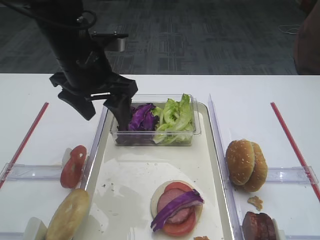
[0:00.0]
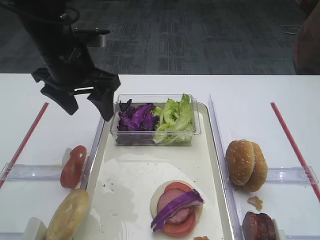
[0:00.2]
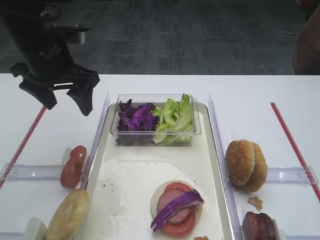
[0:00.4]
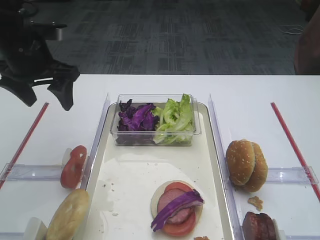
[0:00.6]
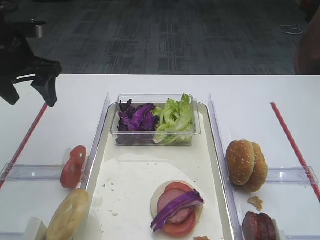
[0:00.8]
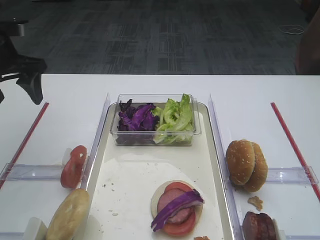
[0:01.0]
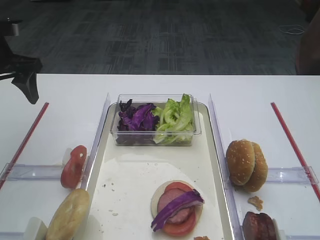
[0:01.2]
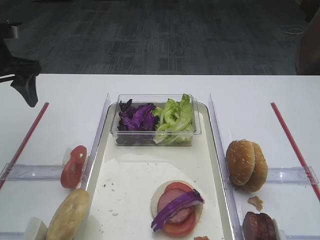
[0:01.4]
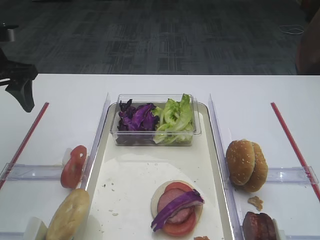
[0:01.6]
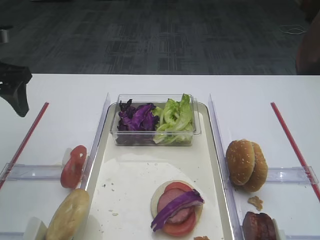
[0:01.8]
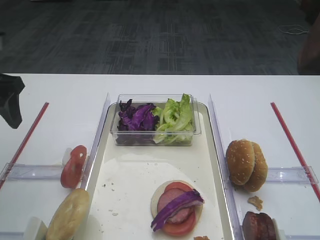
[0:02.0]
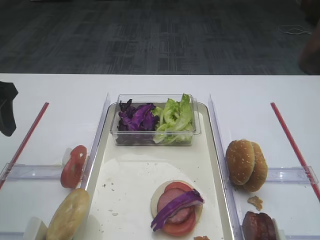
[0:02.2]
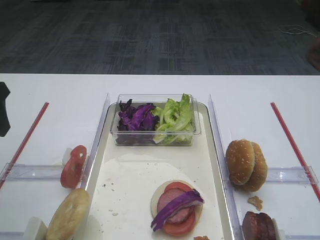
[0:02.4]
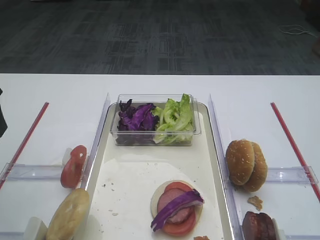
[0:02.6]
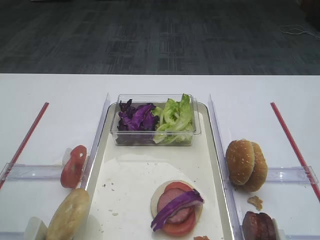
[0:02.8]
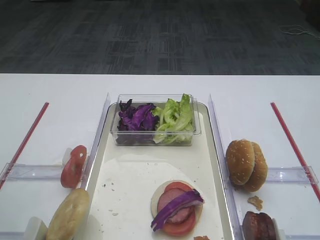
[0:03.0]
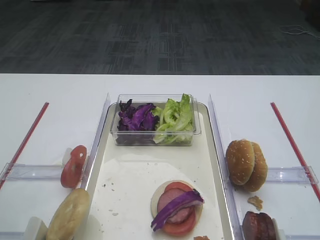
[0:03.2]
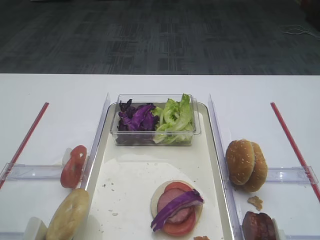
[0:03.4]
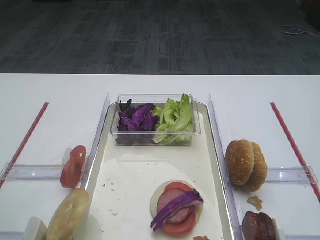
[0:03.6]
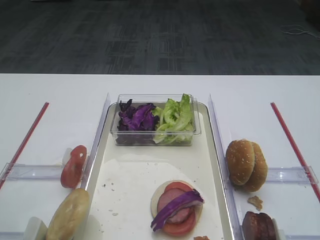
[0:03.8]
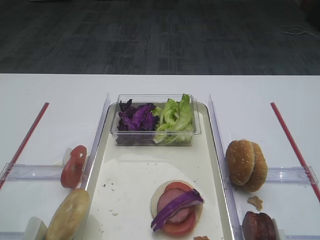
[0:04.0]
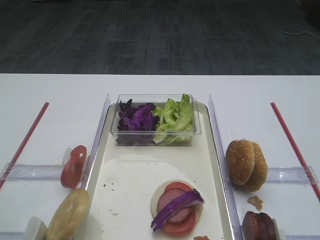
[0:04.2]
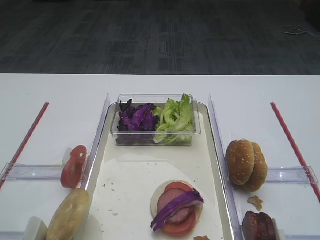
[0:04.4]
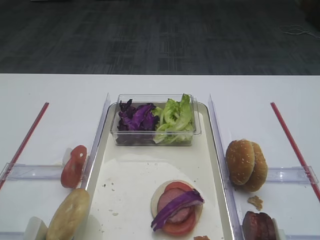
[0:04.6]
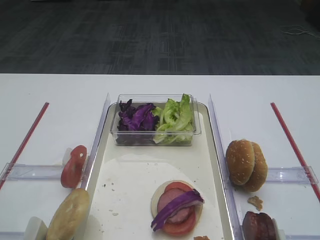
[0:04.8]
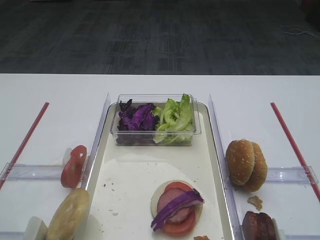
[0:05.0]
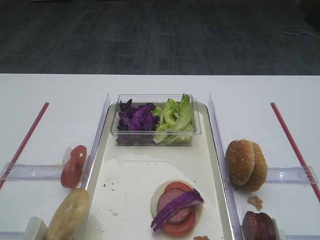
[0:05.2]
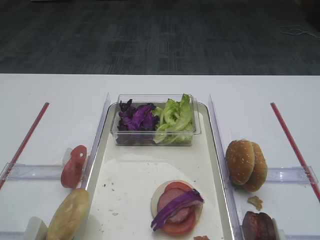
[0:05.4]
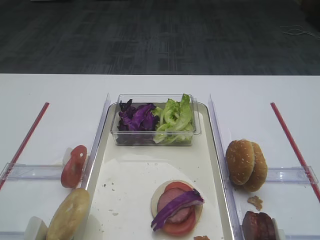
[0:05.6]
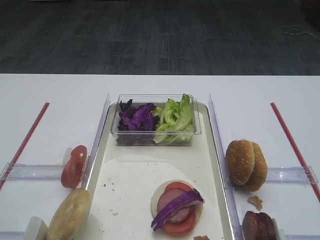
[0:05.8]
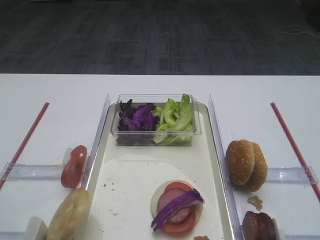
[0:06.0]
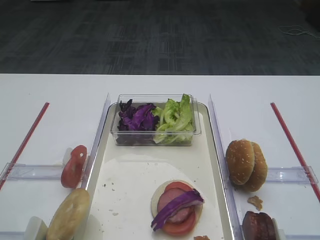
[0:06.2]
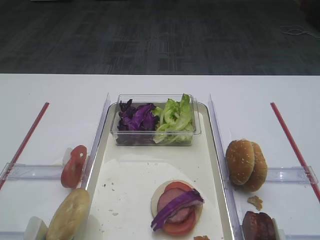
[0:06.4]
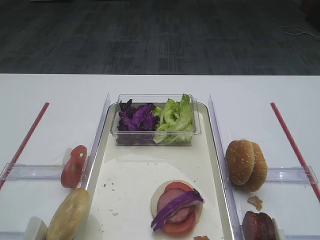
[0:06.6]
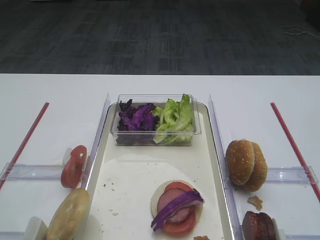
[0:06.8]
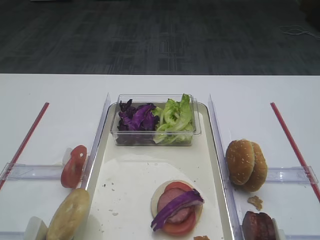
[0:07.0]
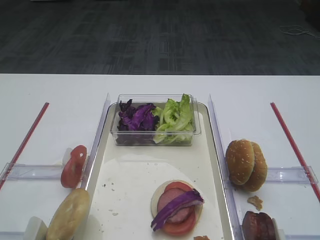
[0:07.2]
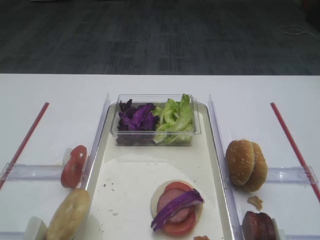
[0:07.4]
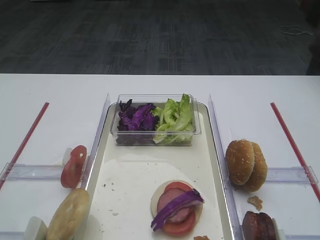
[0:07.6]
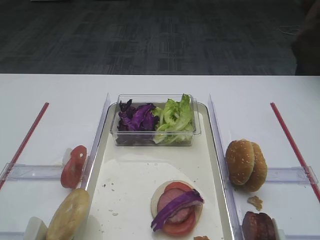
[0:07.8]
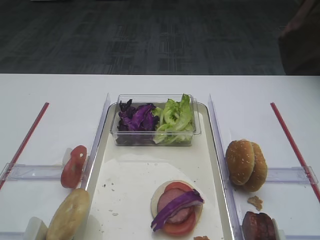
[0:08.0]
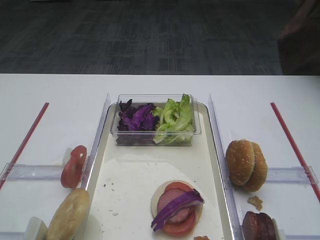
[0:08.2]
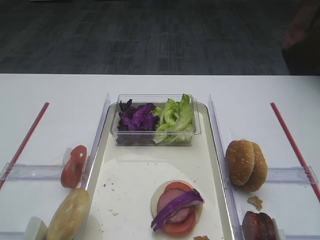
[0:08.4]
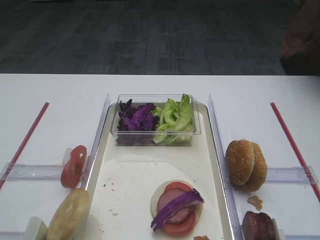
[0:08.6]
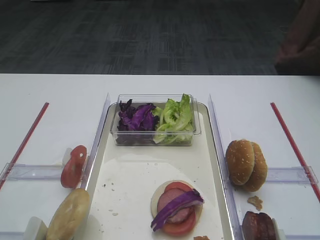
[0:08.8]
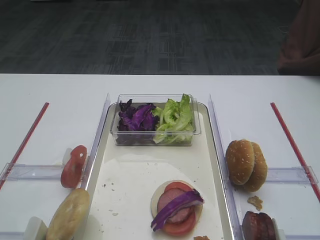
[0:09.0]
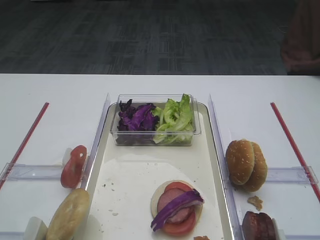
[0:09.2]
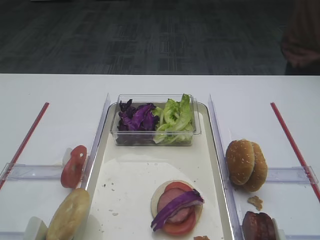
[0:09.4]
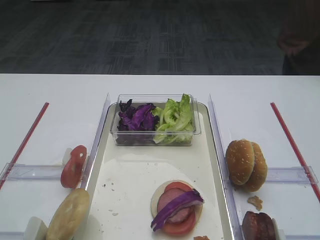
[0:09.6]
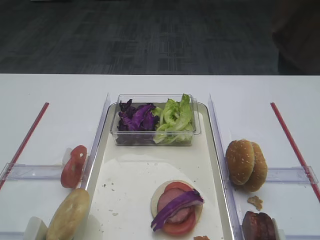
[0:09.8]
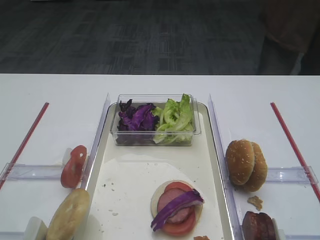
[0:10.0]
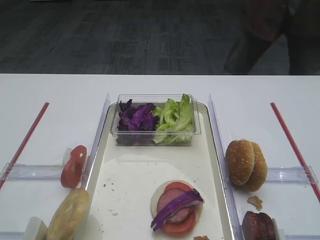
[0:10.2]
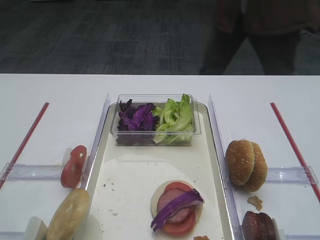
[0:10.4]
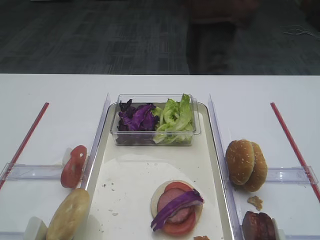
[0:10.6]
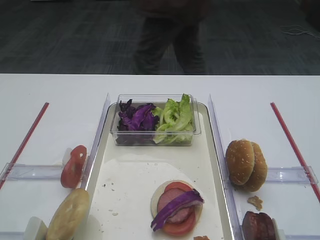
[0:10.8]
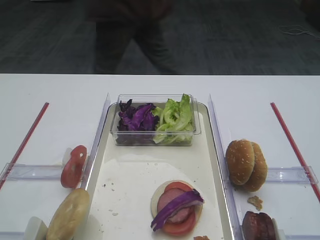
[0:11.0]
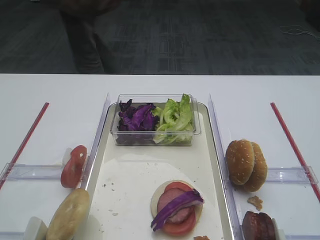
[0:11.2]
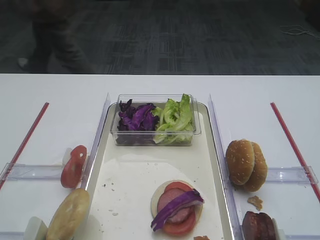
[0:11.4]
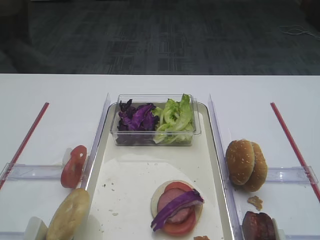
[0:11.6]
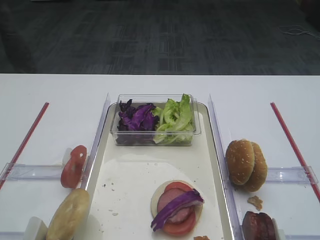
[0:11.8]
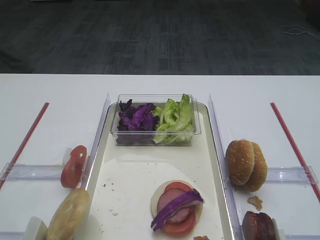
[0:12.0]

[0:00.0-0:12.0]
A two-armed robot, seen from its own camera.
0:00.0 to 0:01.6: The left gripper is displaced to the left by approximately 15 cm.
0:01.6 to 0:03.0: The left gripper travels backward by roughly 15 cm.
0:07.6 to 0:12.0: Both grippers stay about where they are.

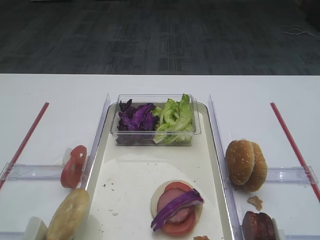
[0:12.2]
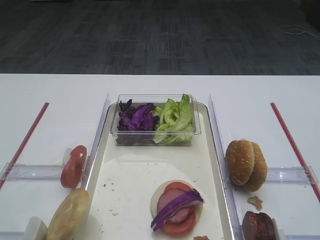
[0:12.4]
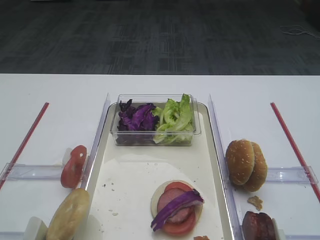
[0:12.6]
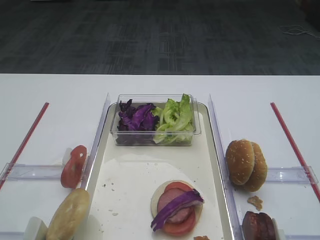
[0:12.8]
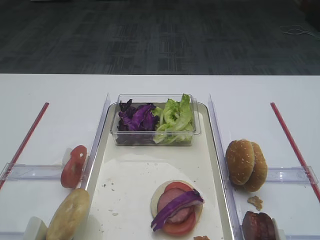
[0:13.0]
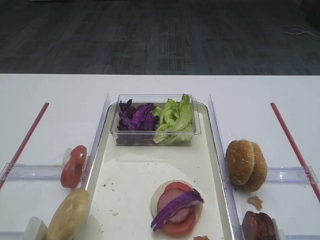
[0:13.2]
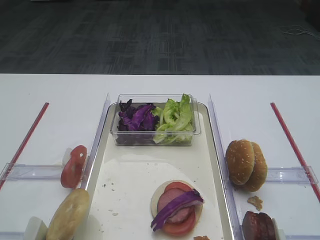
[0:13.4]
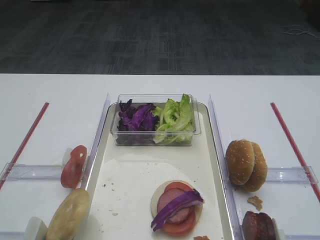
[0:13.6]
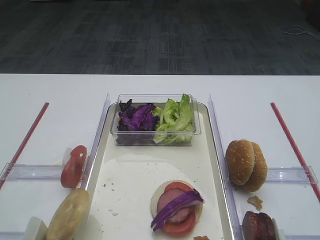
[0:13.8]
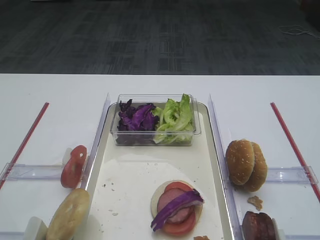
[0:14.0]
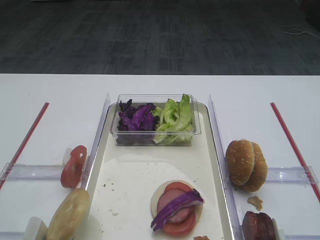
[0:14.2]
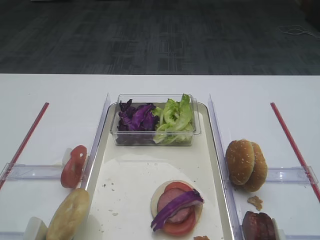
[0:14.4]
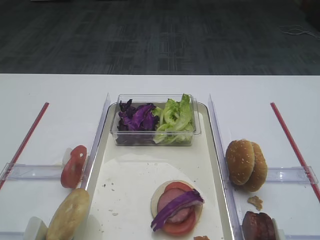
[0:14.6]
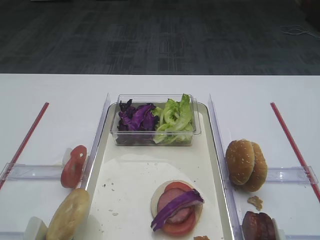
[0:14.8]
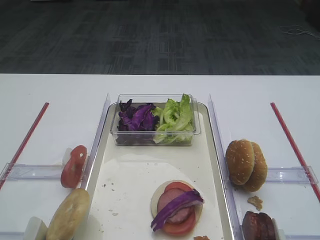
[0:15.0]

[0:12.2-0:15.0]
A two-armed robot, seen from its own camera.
0:12.2 to 0:15.0: Both grippers stay about where they are.

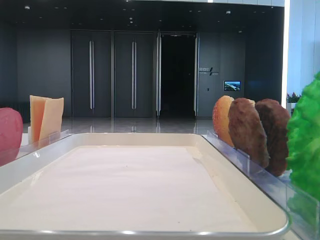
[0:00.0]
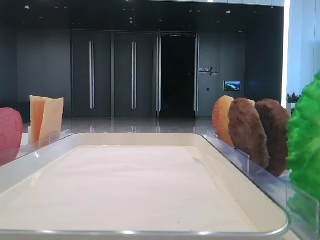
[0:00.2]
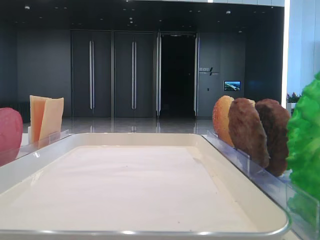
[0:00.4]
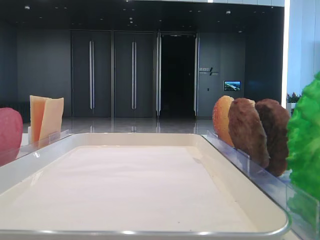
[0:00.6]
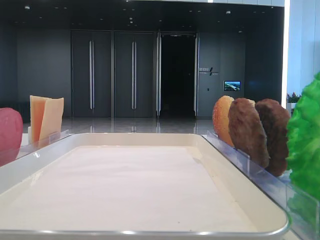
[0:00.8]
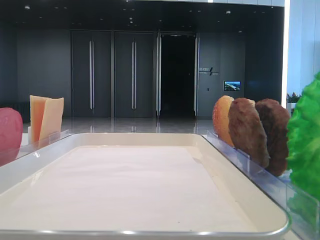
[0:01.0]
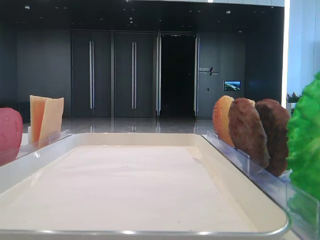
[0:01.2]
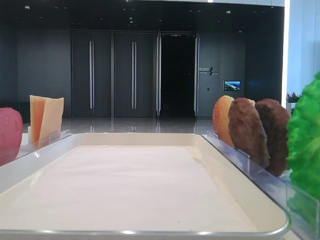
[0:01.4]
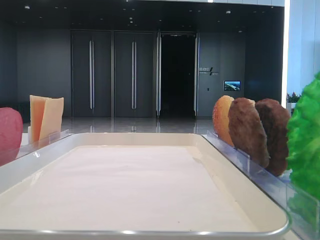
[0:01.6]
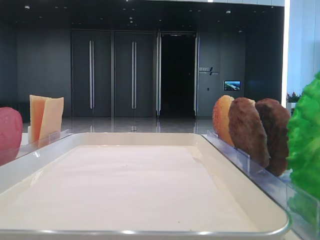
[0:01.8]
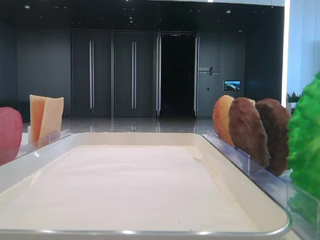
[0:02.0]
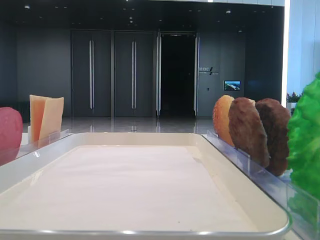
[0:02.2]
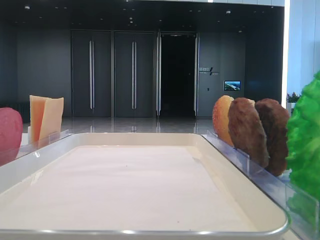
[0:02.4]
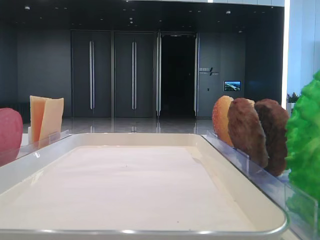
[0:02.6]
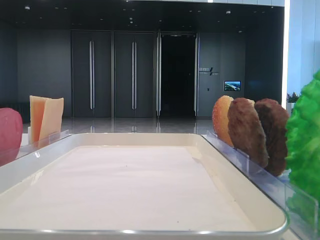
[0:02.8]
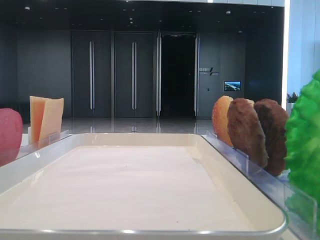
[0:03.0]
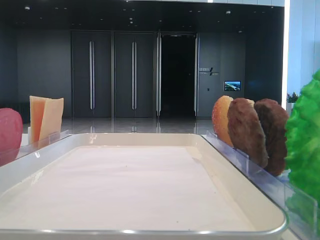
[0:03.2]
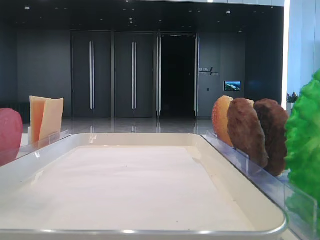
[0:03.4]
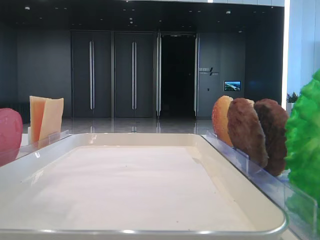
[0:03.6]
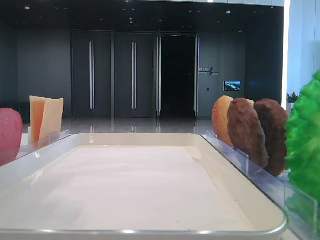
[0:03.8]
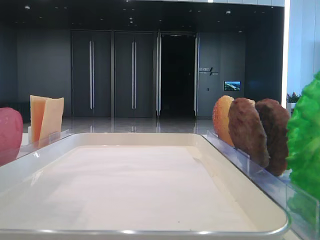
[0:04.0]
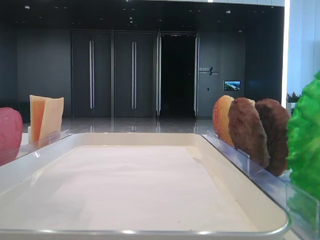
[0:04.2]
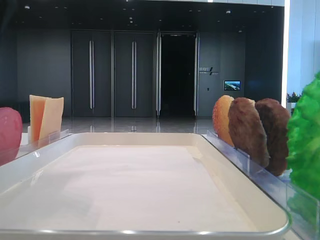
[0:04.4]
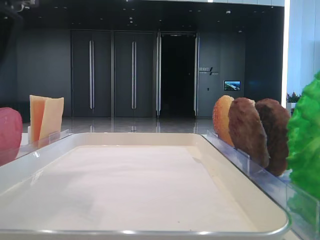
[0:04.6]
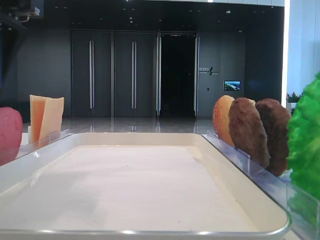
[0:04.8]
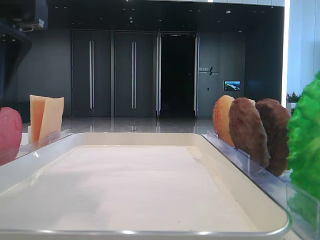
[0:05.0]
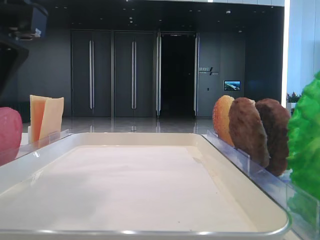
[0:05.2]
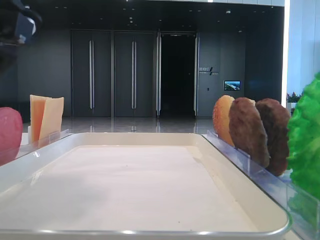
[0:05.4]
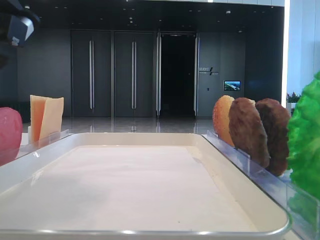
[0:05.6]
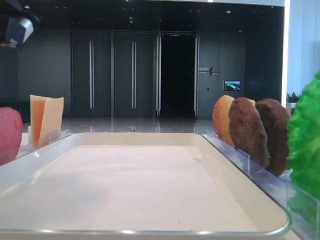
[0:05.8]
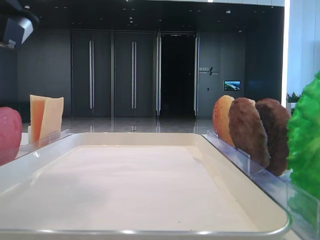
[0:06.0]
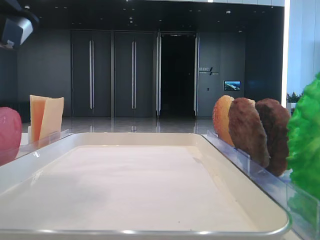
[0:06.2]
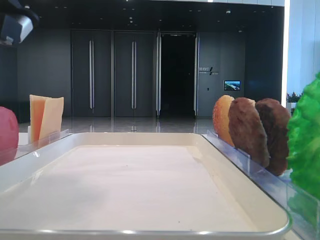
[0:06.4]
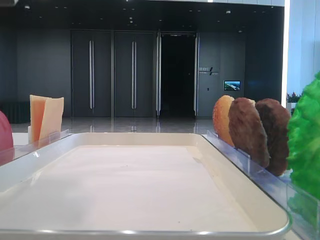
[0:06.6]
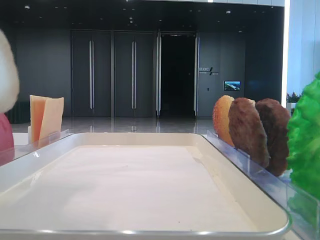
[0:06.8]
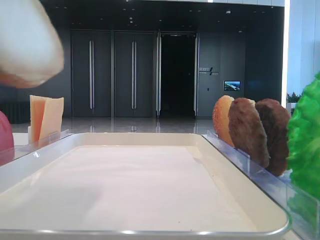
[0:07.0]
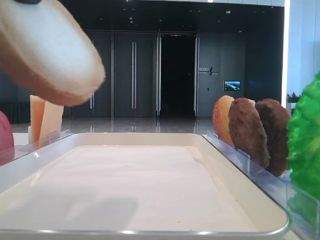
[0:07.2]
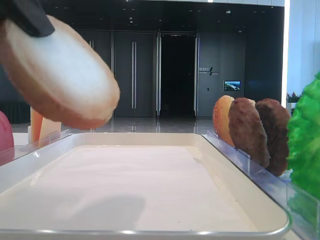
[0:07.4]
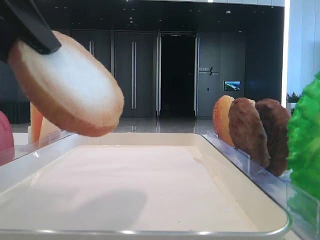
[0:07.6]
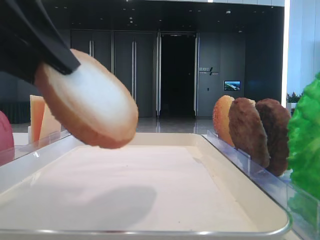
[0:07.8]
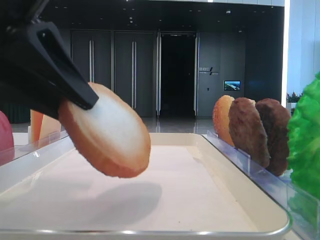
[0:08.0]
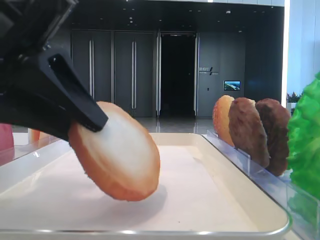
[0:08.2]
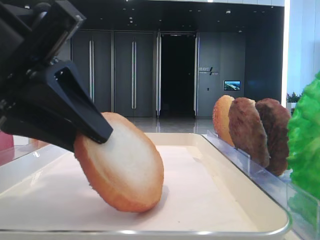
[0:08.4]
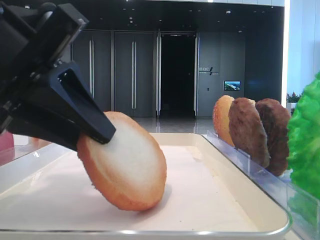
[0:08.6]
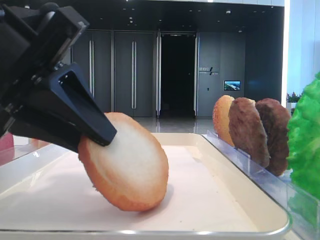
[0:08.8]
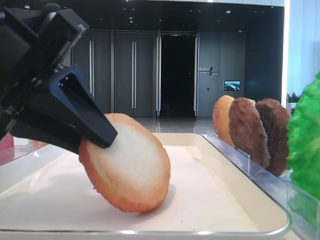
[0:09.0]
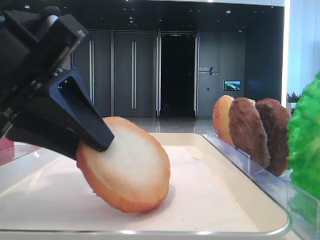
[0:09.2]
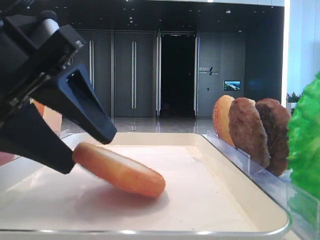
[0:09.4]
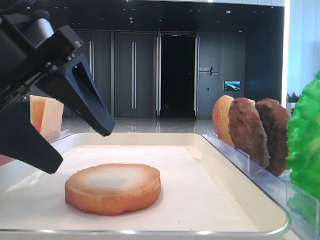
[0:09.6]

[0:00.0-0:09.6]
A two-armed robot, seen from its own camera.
Step, 0:00.0 to 0:06.2: Pick up the bottom bread with the left hand.
Step, 0:06.4 to 0:09.4: Place the bread on the tray with the left hand.
0:03.2 to 0:04.8: The left gripper shifts about 15 cm to the right and downward.
0:04.8 to 0:06.4: The left gripper closes.
0:06.4 to 0:08.0: The left gripper travels upward and back again, about 10 cm each way.
0:08.0 to 0:09.6: The left gripper opens up.
